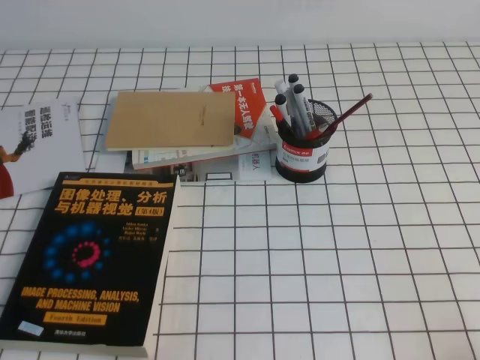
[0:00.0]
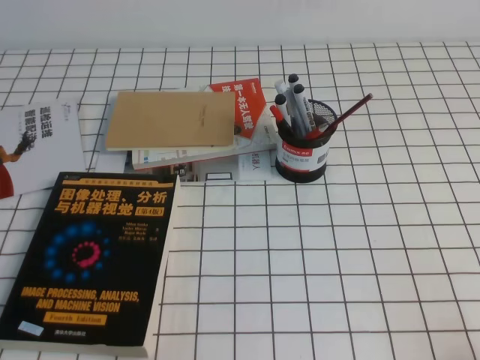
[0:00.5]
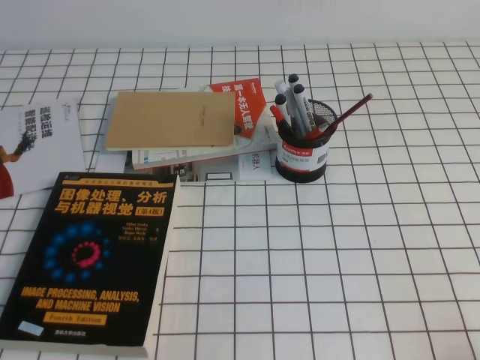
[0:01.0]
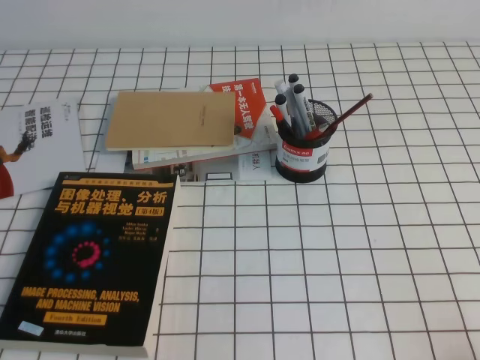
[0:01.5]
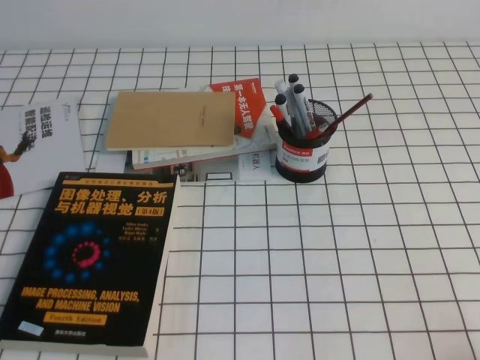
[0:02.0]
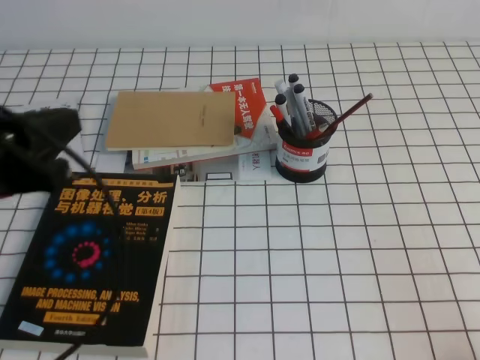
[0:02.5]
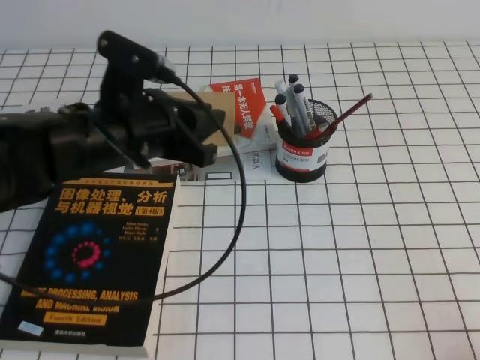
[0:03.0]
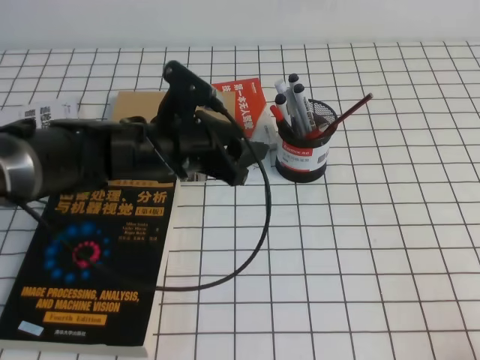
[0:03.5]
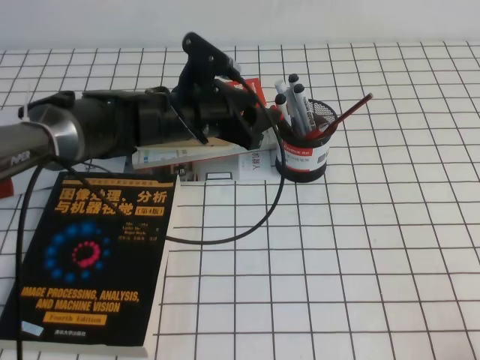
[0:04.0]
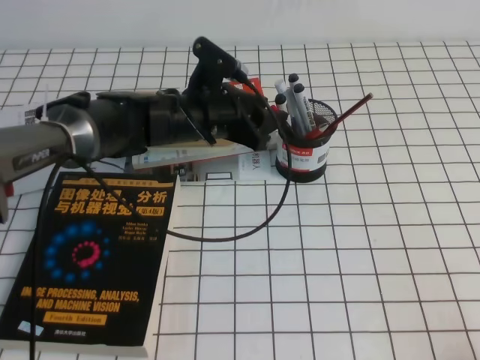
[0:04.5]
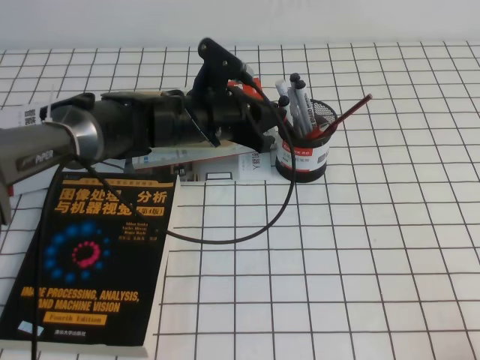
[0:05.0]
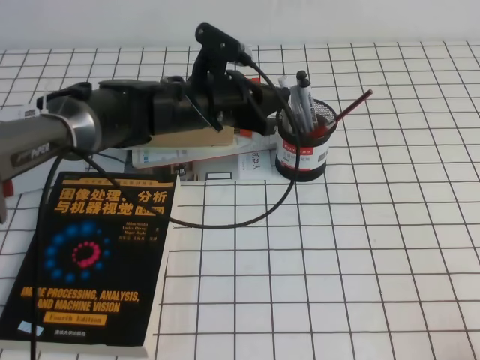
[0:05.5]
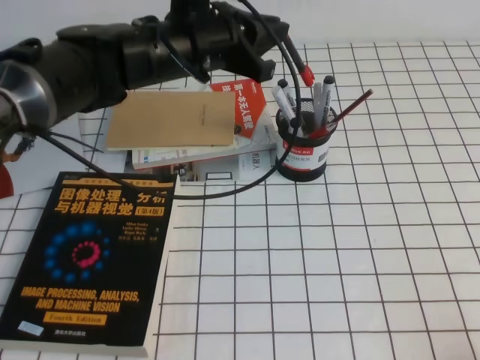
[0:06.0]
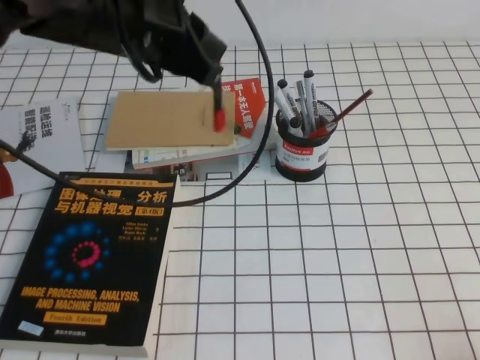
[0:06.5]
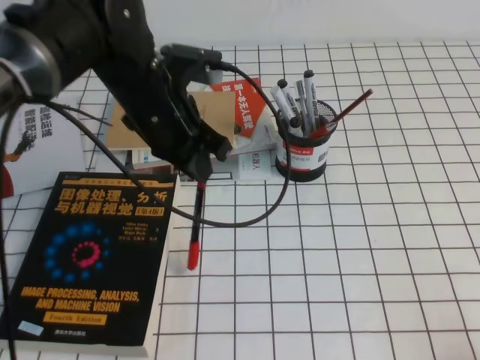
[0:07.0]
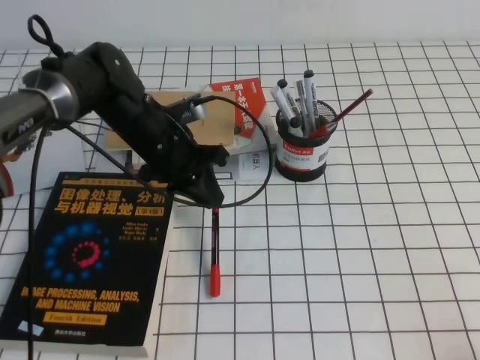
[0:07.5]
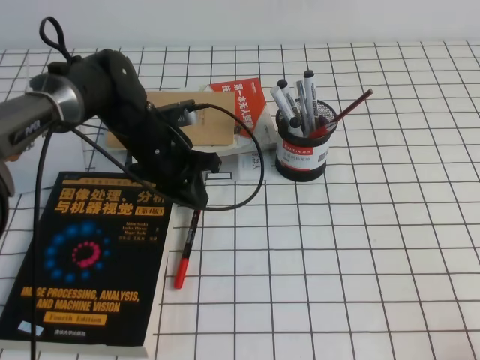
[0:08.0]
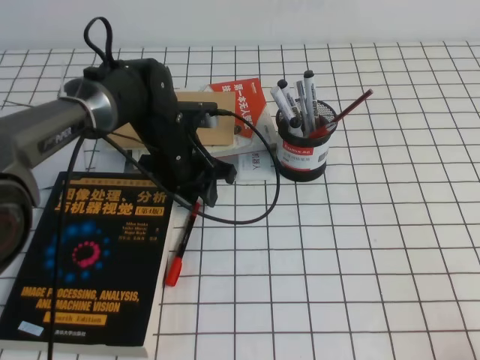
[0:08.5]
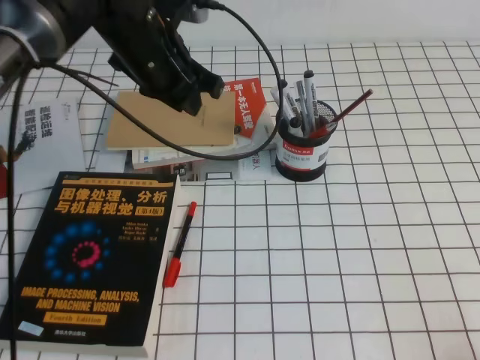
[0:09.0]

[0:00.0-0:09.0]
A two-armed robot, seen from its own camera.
0:02.0 to 0:04.5: The left gripper shifts approximately 40 cm forward and to the right, and opens up.
0:04.5 to 0:07.0: The left gripper travels upward and backward by about 10 cm, and closes its fingers.
0:07.0 to 0:09.0: The left gripper is displaced forward by roughly 5 cm, and moves some 10 cm downward and comes back.

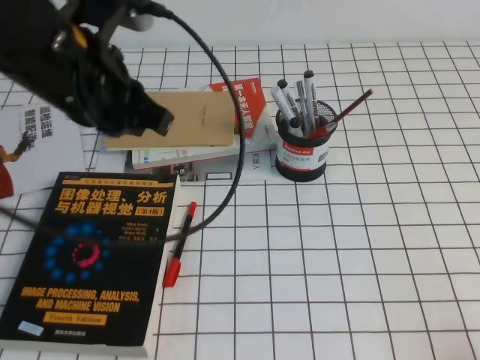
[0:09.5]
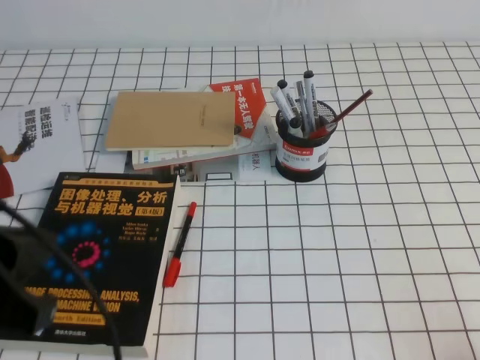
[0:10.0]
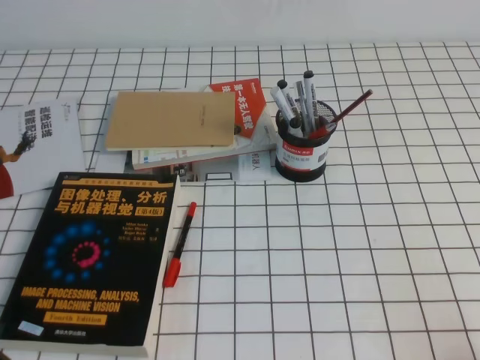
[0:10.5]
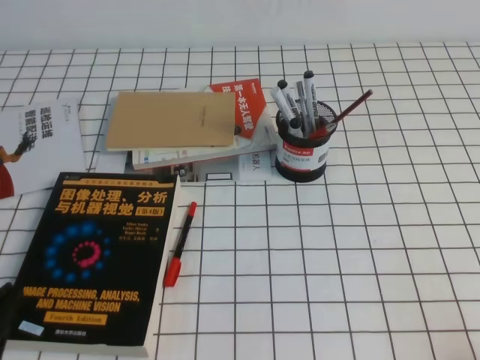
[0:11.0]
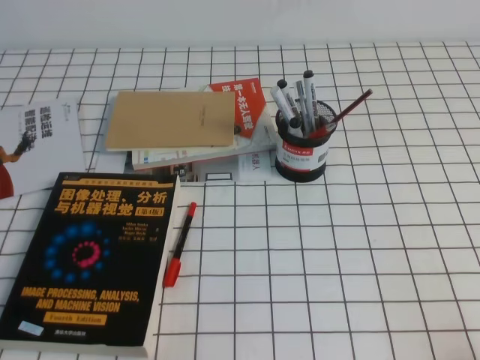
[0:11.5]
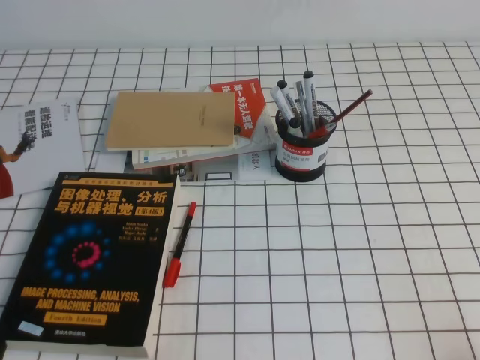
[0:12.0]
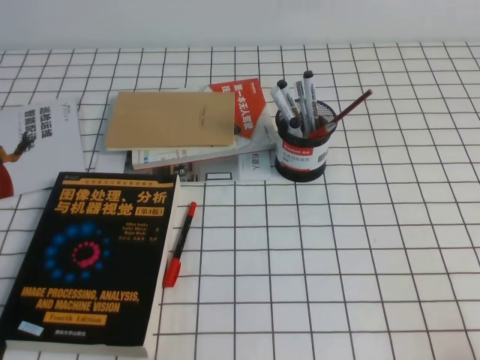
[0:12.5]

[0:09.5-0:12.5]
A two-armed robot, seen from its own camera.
Step, 0:09.5 to 0:12.5: Pick up the pen from the pen holder.
0:09.5 to 0:11.0: The left gripper goes roughly 30 cm backward, downward and to the left.
